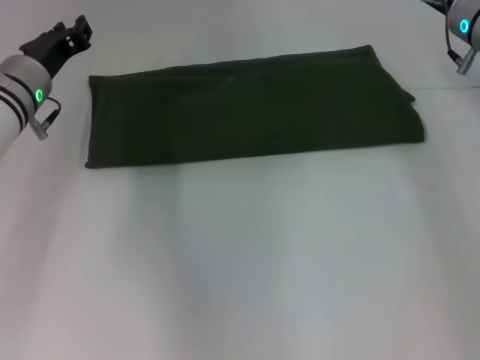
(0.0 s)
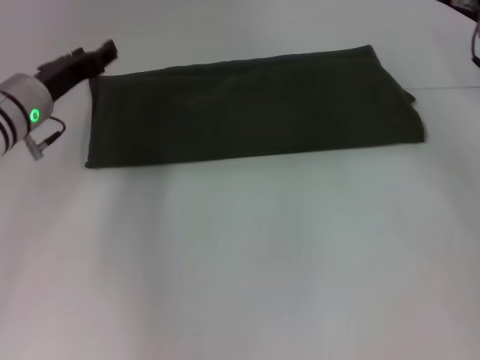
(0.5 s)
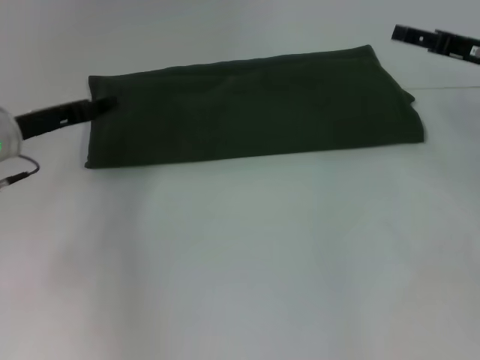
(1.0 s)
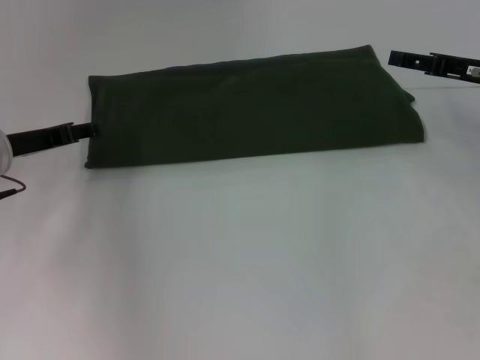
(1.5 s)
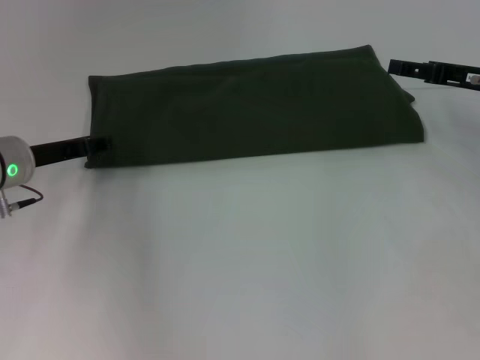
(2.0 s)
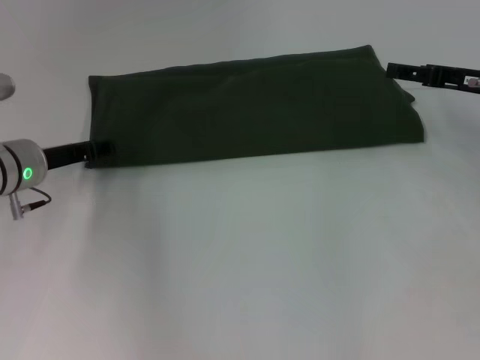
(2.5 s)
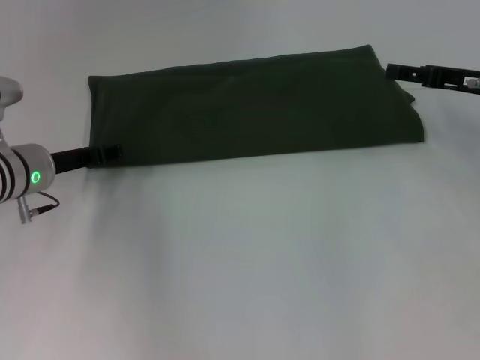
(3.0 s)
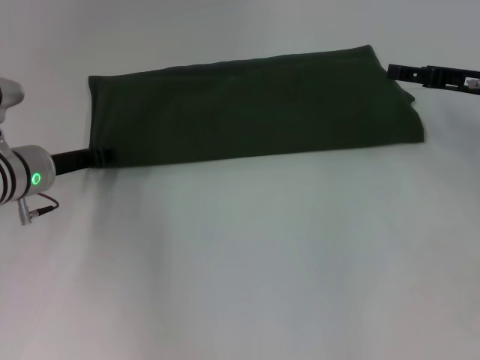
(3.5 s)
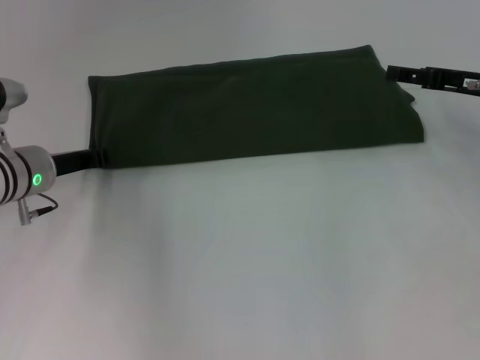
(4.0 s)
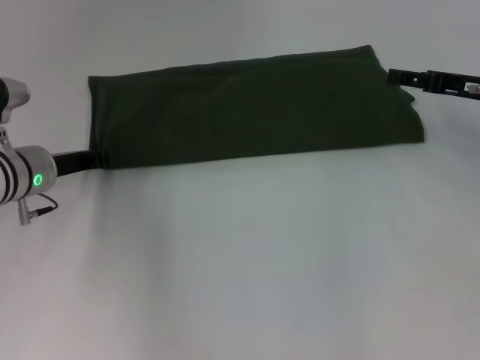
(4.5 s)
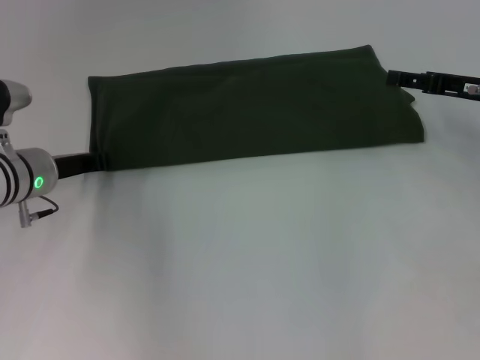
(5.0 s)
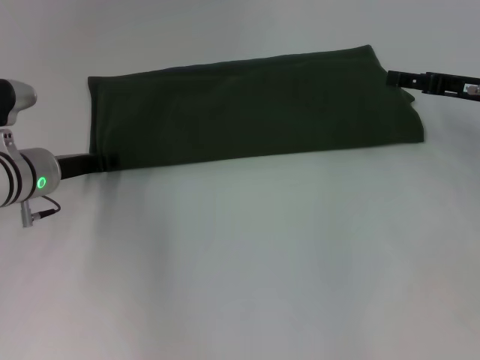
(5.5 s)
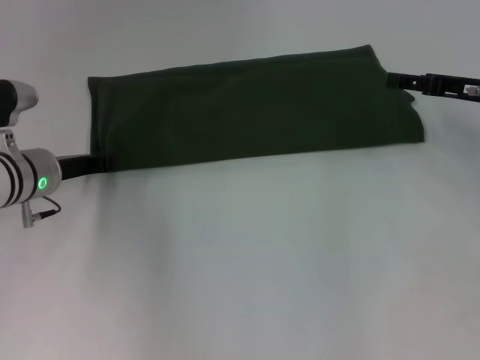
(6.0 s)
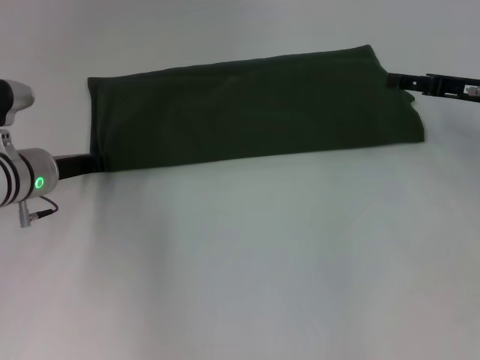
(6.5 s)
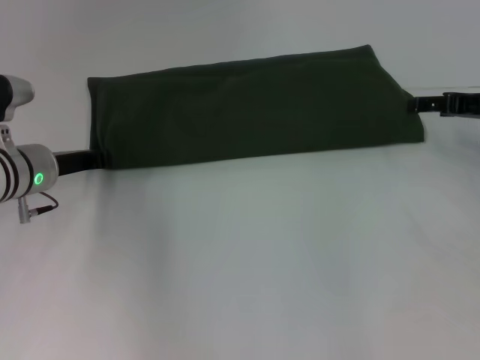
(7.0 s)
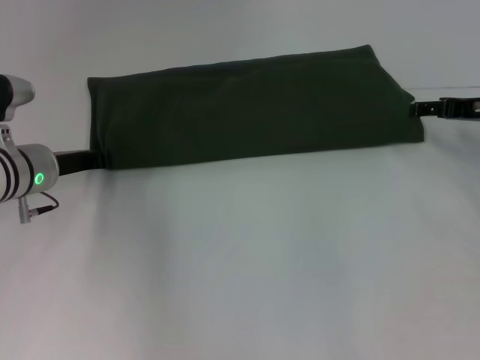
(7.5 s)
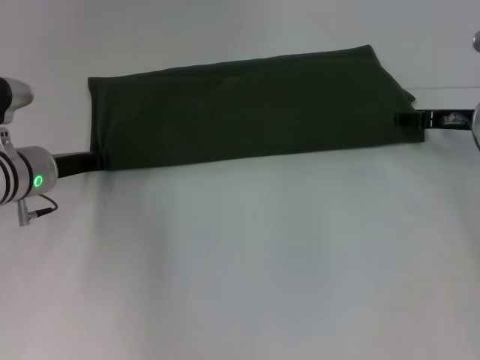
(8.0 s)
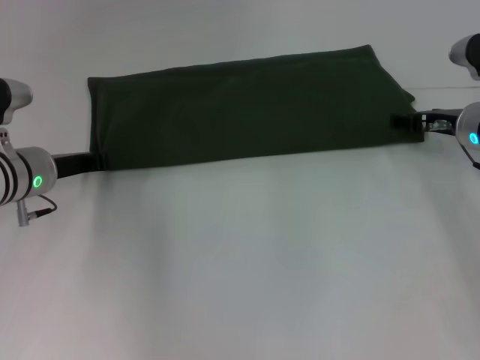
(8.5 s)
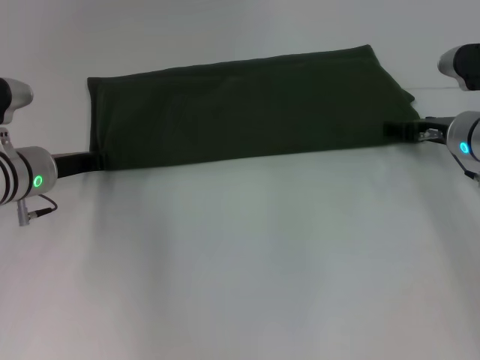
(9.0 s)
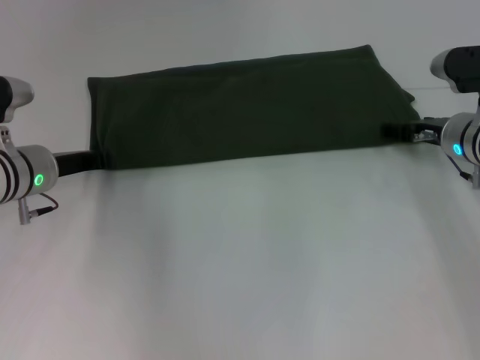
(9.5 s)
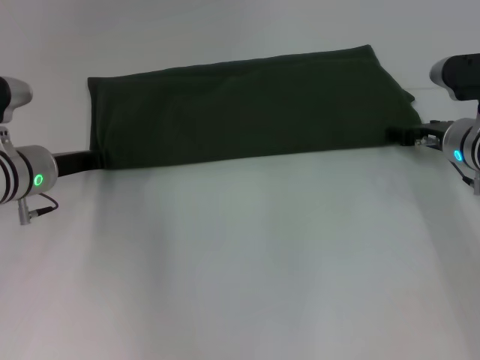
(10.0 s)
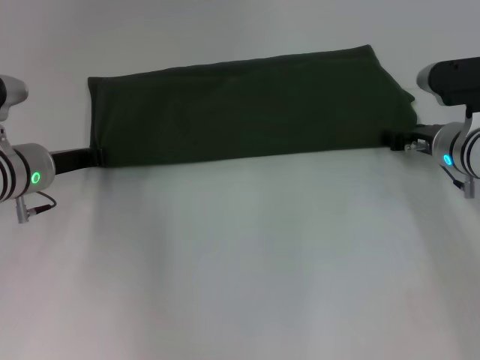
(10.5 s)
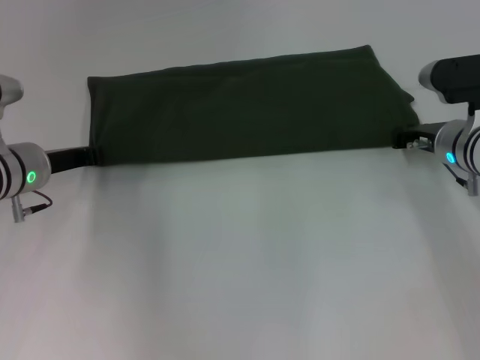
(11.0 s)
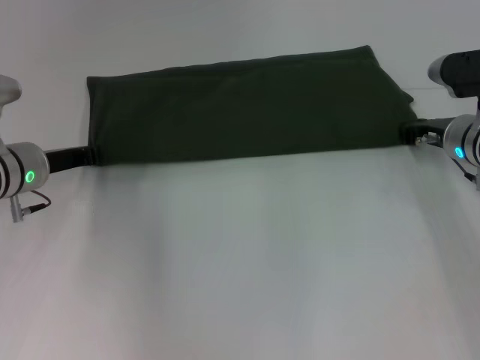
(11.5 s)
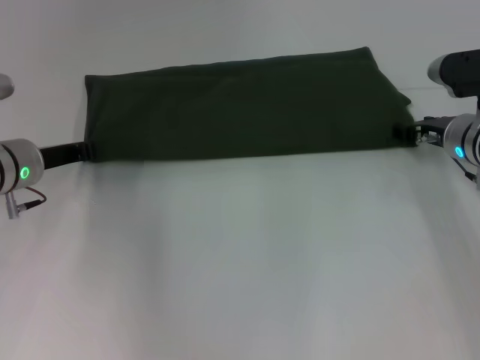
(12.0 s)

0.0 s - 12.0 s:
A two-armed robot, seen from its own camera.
0.0 s - 2.0 s: The left gripper ends up approximately 5 cm from where it was, and opens; the right gripper goes about 10 cm to the right and backward, and opens up.
2.0 s - 4.0 s: The left gripper closes its fingers.
4.0 s - 6.0 s: Both grippers stay put.
8.0 s - 10.0 s: There are only small adjustments of the grippers.
10.0 s - 12.0 s: The right gripper closes, then opens again.

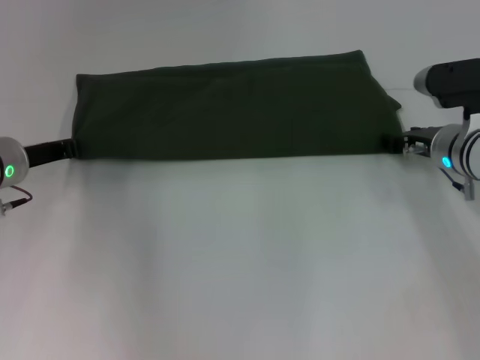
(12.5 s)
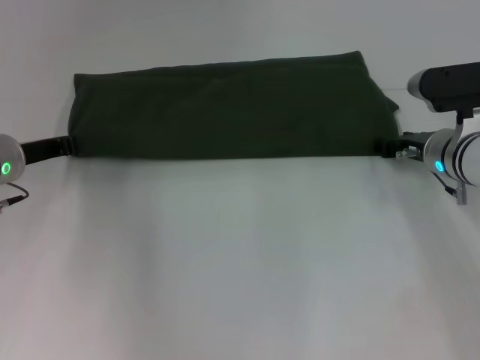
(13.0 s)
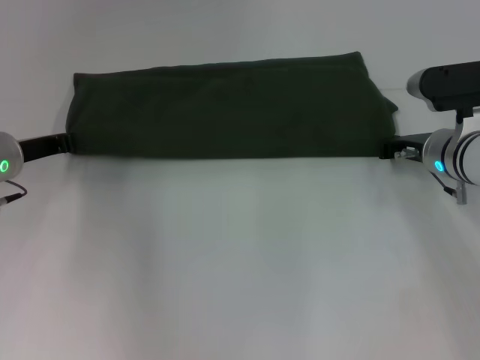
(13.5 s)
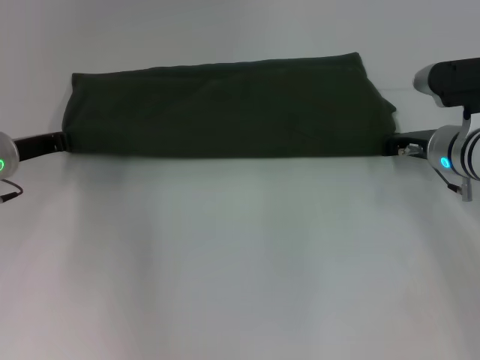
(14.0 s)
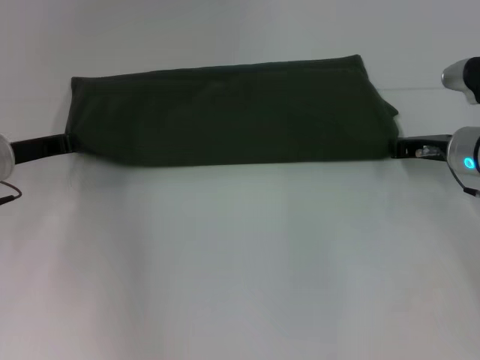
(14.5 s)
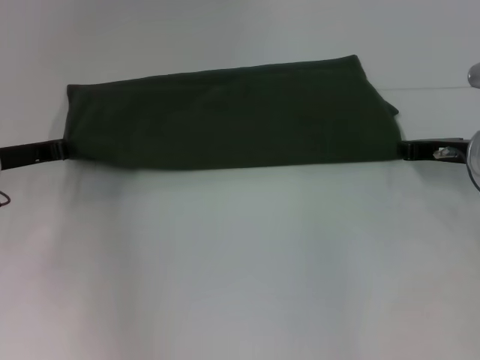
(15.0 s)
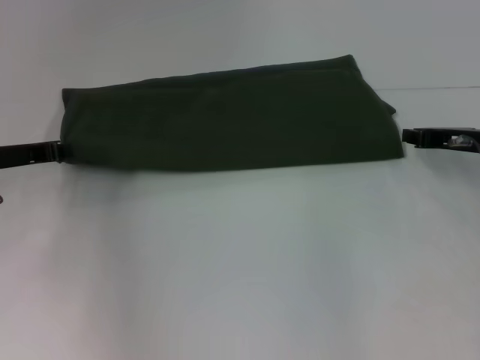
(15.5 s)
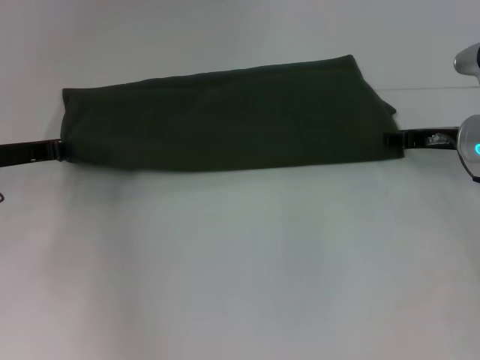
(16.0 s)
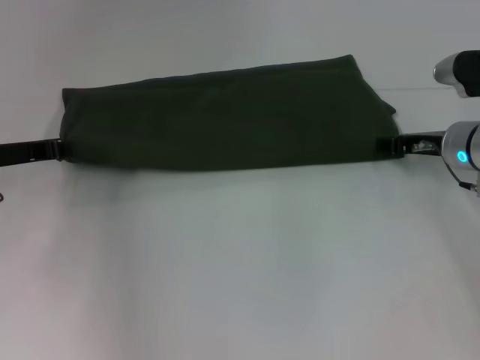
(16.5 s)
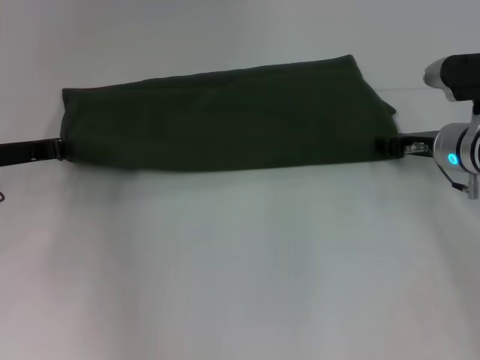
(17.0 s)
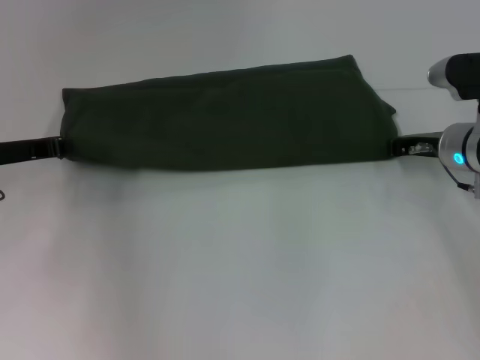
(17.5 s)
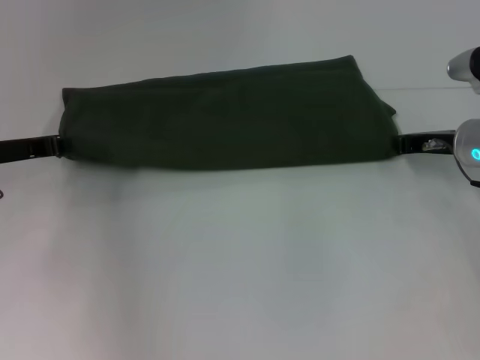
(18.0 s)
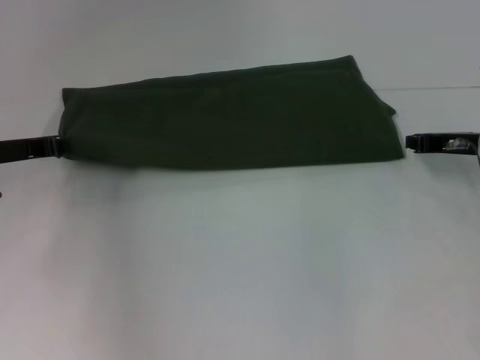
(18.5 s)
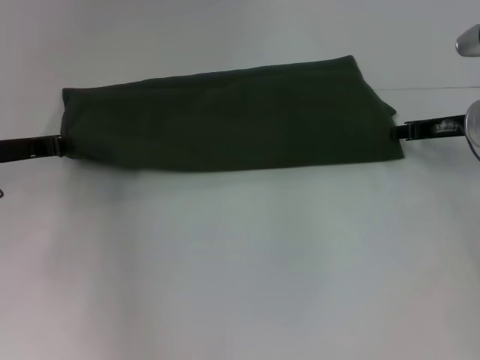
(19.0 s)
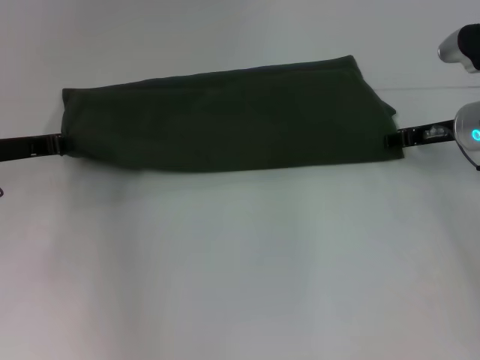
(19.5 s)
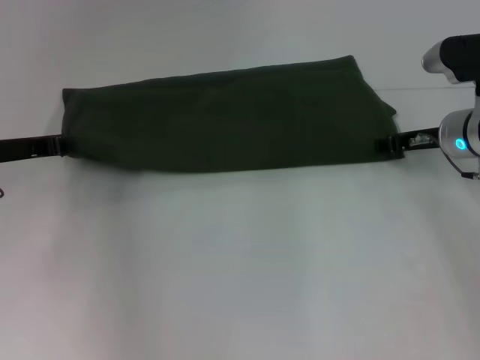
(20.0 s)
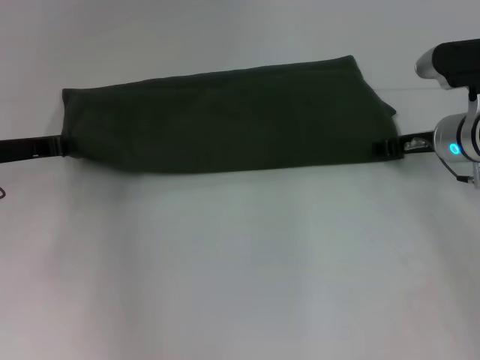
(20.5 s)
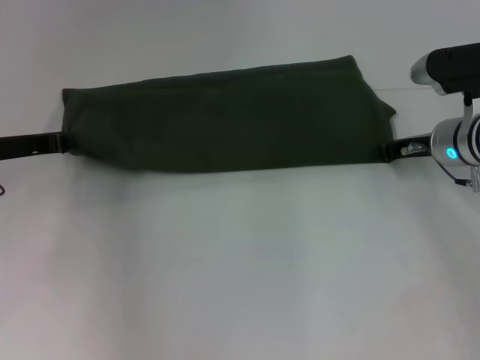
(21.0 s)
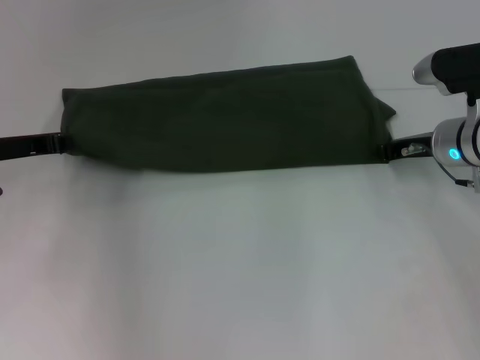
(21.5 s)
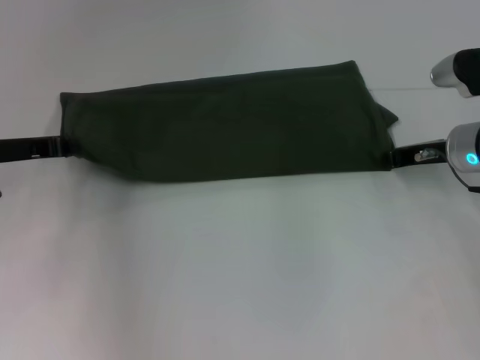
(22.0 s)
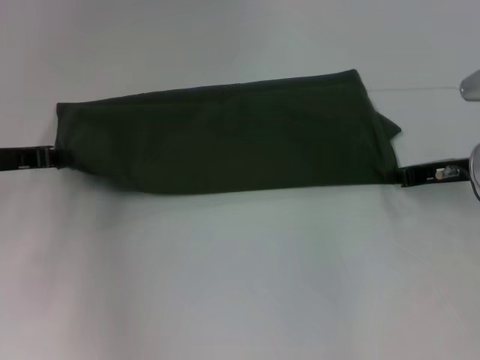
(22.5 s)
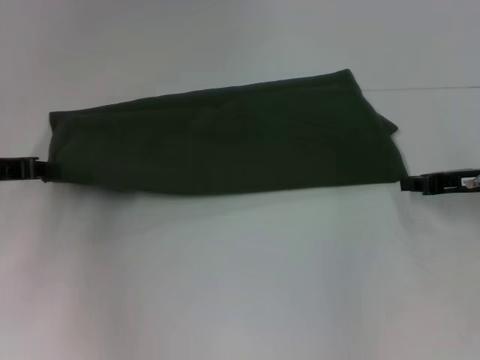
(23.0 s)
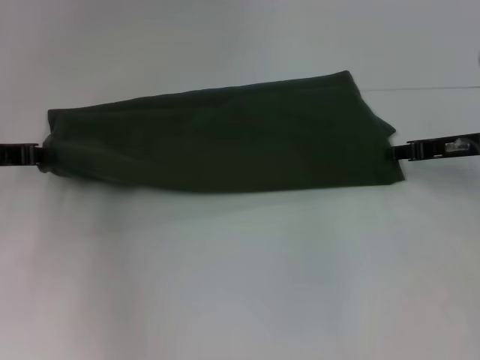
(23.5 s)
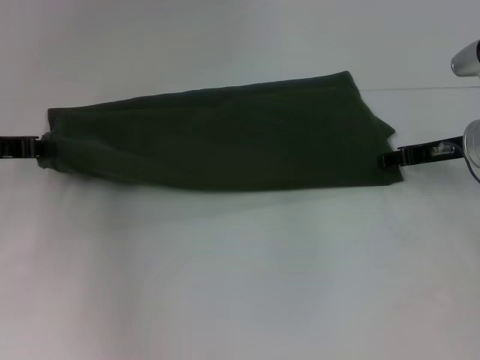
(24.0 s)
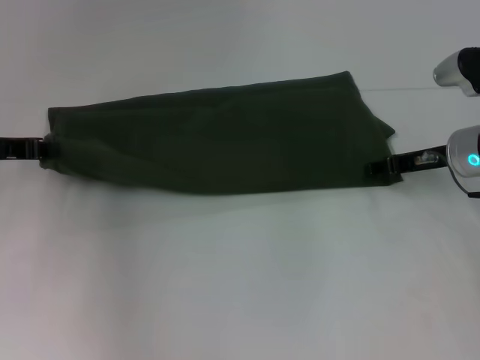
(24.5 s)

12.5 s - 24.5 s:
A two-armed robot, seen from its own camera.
12.5 s - 14.5 s: The right gripper closes its fingers.
14.5 s - 16.5 s: The right gripper opens.
16.5 s - 18.5 s: The right gripper closes its fingers.
18.5 s - 20.5 s: The right gripper shifts by some 5 cm, and opens up.
20.5 s - 22.5 s: The right gripper moves some 5 cm, and closes its fingers.
22.5 s - 24.5 s: The right gripper opens its fingers.

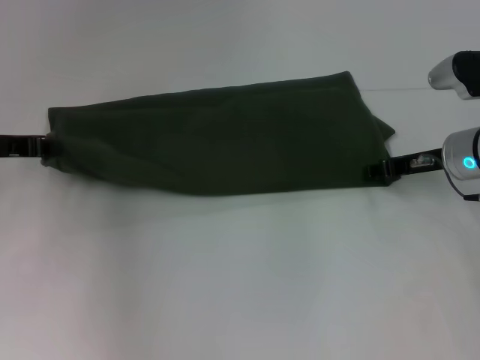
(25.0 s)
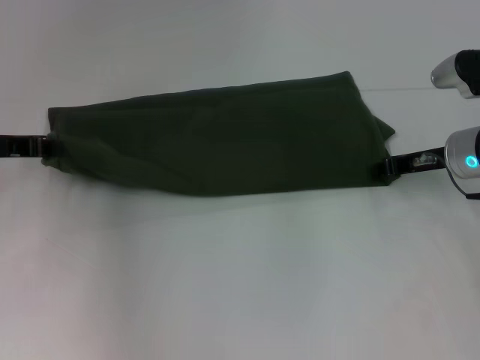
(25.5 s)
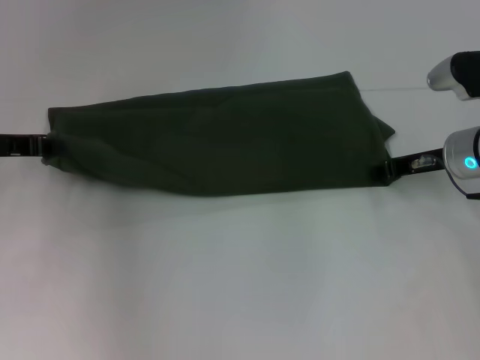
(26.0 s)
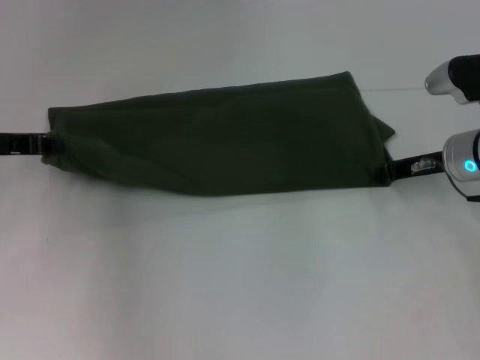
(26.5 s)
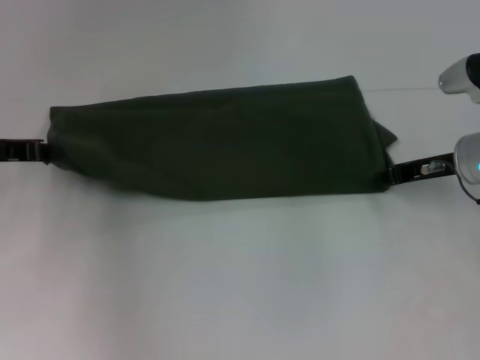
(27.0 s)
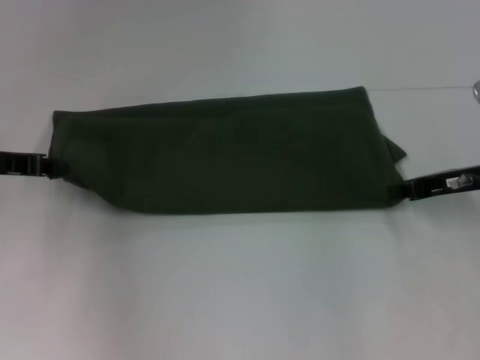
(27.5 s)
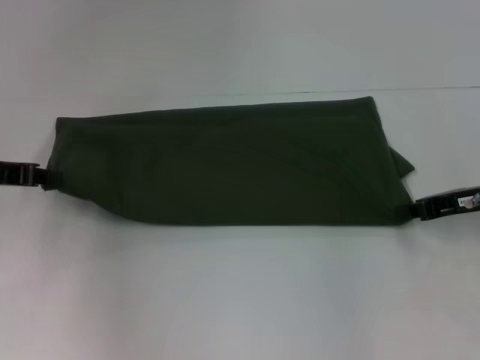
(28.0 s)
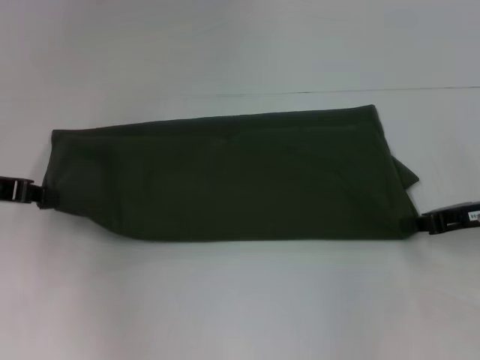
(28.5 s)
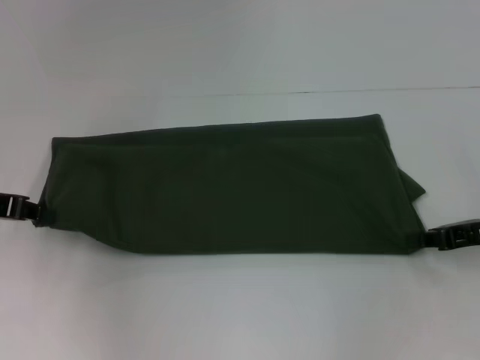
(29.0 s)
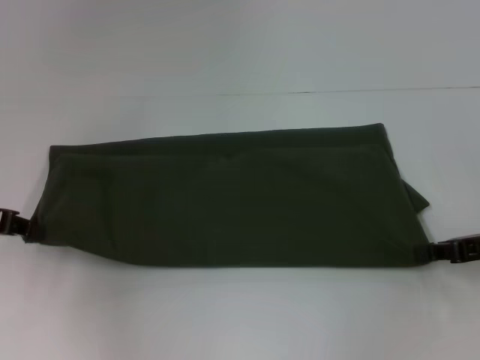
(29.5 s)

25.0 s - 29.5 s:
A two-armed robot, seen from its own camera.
25.0 s - 27.0 s: The right gripper closes.
27.0 s - 29.5 s: The right gripper moves backward and to the right, about 10 cm.
